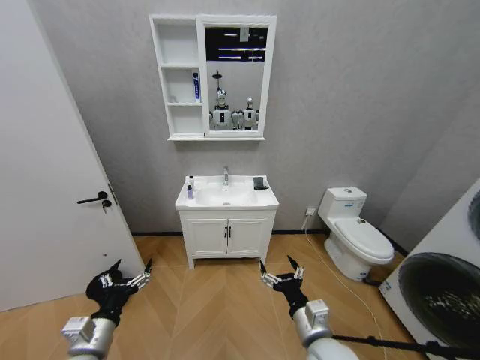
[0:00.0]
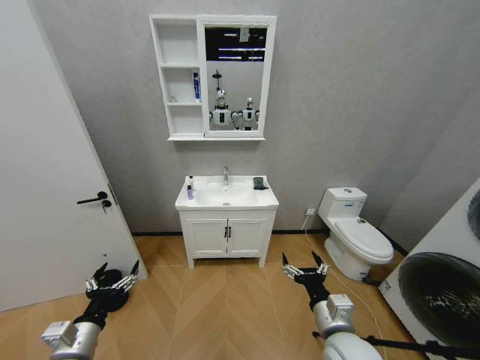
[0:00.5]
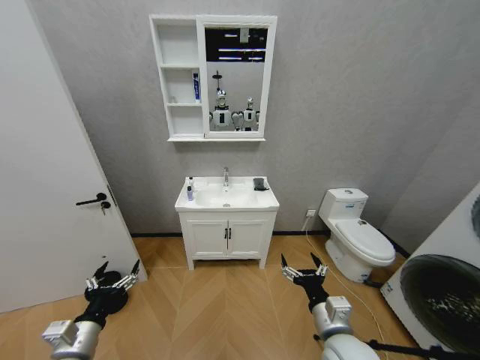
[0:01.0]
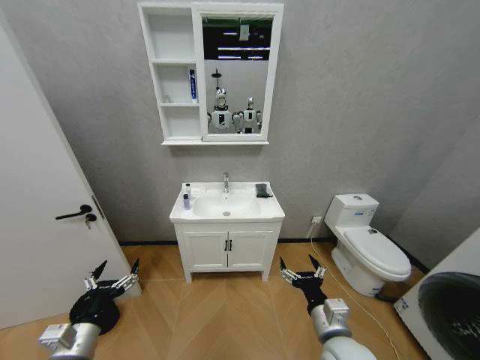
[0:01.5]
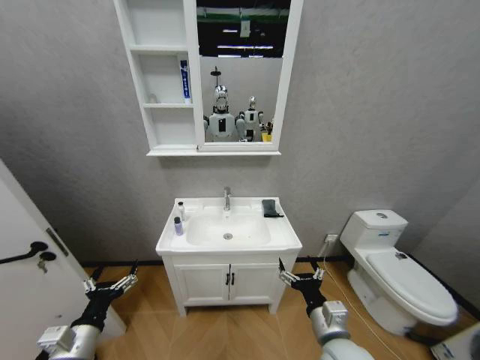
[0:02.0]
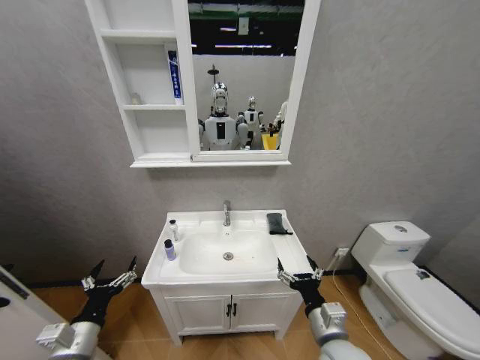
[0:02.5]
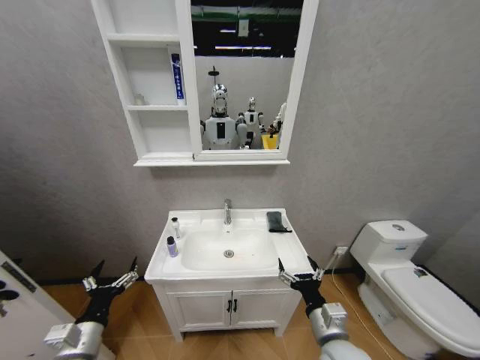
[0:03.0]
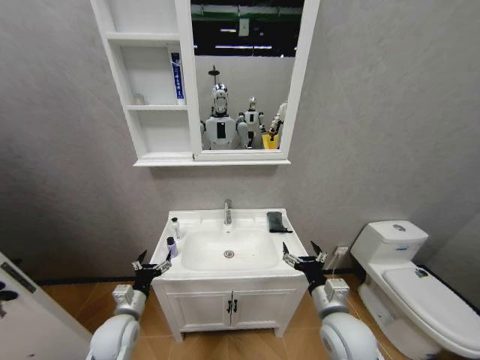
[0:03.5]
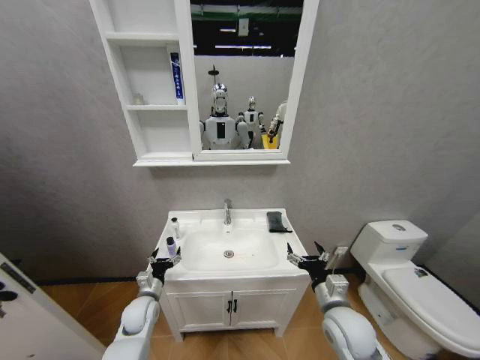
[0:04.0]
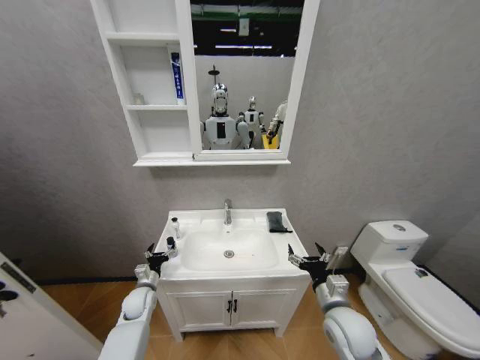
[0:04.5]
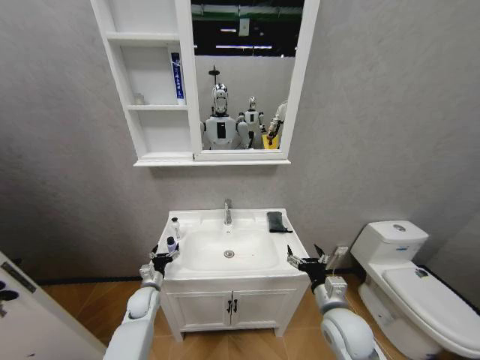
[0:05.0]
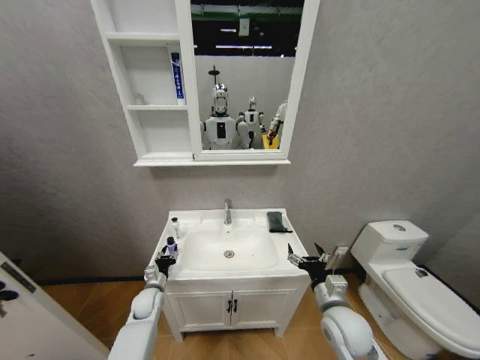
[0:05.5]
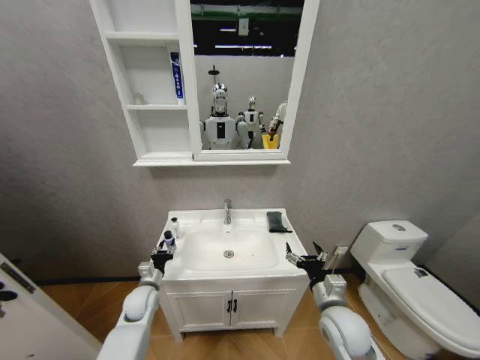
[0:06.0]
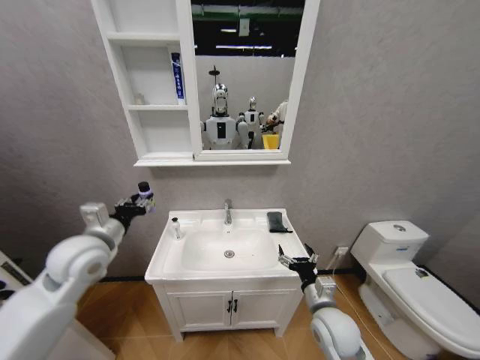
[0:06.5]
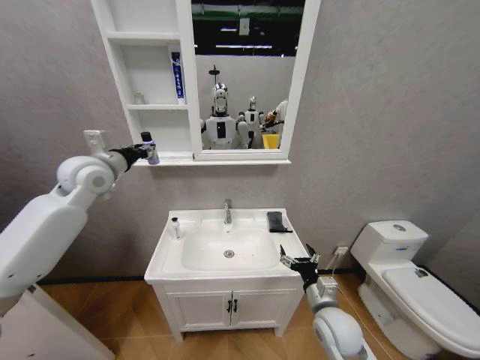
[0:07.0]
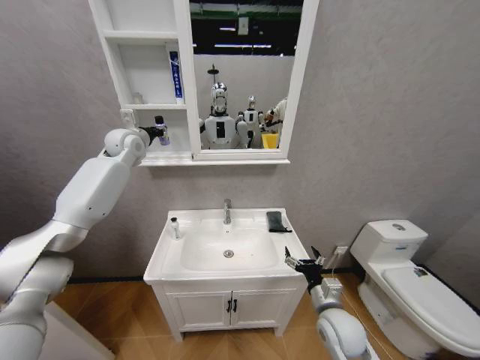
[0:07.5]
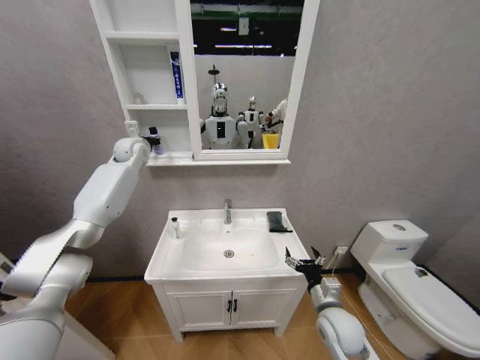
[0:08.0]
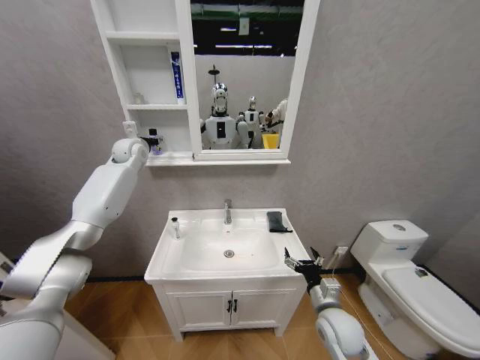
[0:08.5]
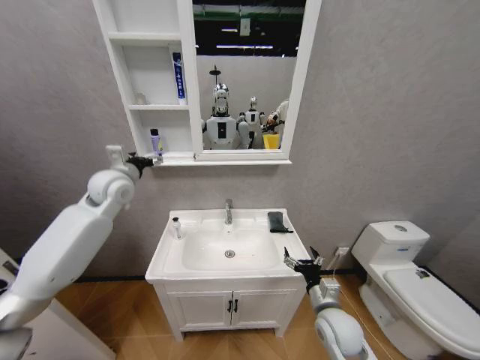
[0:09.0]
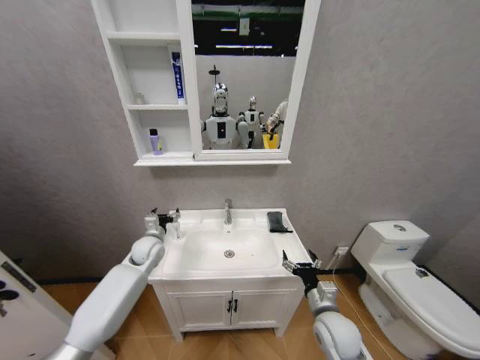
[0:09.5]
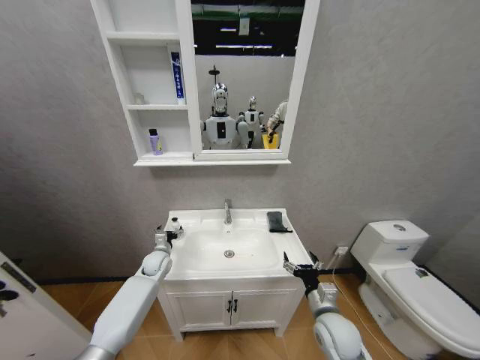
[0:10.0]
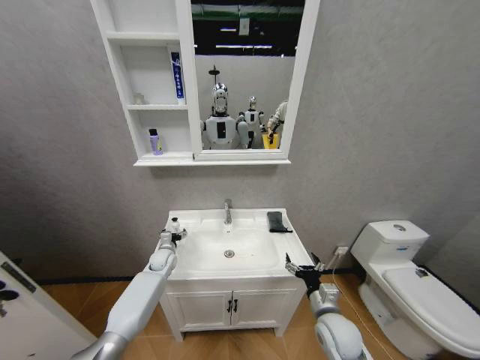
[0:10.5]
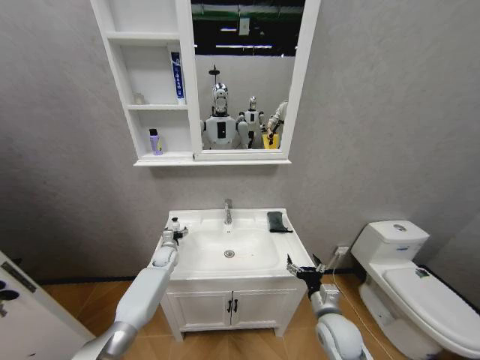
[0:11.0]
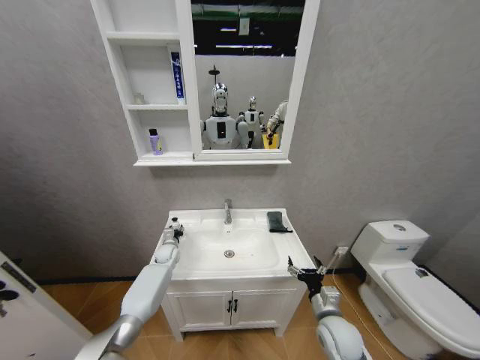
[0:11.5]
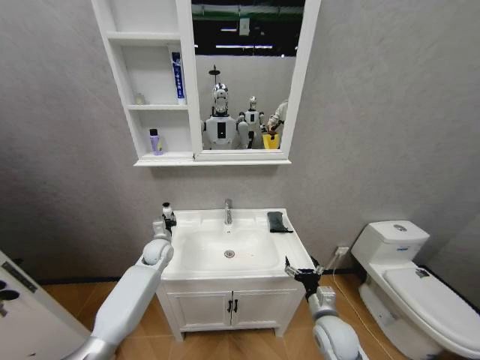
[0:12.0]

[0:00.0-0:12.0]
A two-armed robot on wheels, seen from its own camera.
Task of the whole recording: Move facial cleanser and shampoo from washbasin to cabinet, then wipe washbasin with towel.
0:02.0 to 0:04.0: The left gripper is displaced forward, downward and to the right by roughly 20 cm; the right gripper is displaced forward by approximately 5 cm.
0:04.0 to 0:06.0: The left gripper closes.
0:06.0 to 0:08.0: The left gripper moves upward and forward, roughly 50 cm.
0:08.0 to 0:10.0: The left gripper is displaced downward and backward by roughly 40 cm, and opens its fingers.
0:10.0 to 0:12.0: The left gripper moves upward, some 5 cm, and closes up.

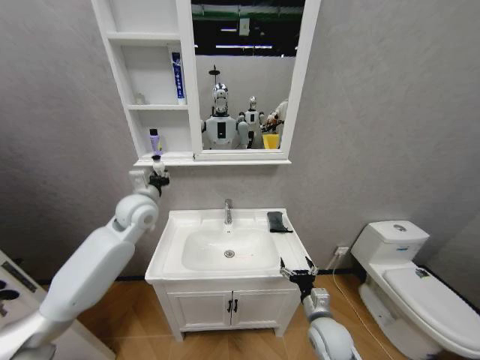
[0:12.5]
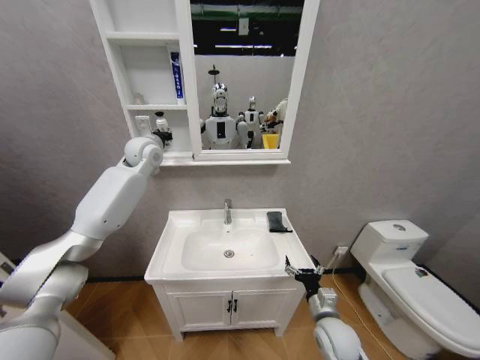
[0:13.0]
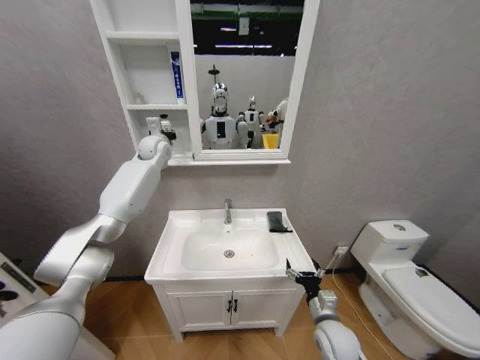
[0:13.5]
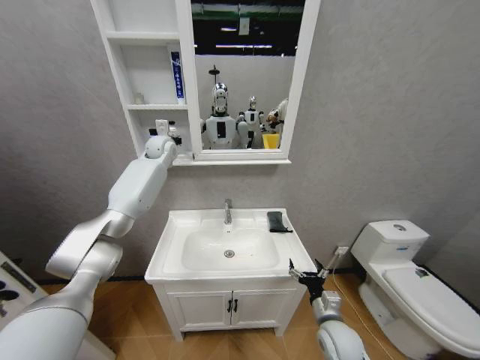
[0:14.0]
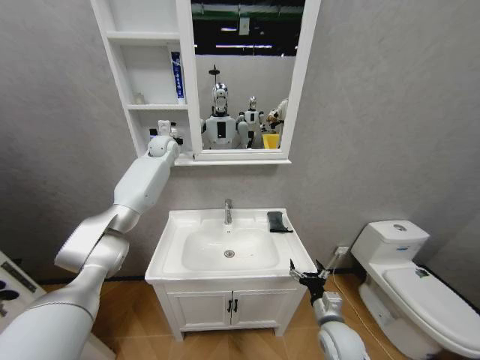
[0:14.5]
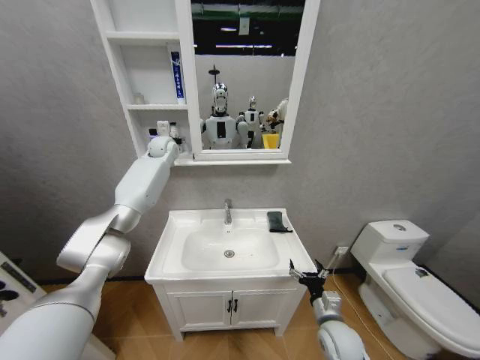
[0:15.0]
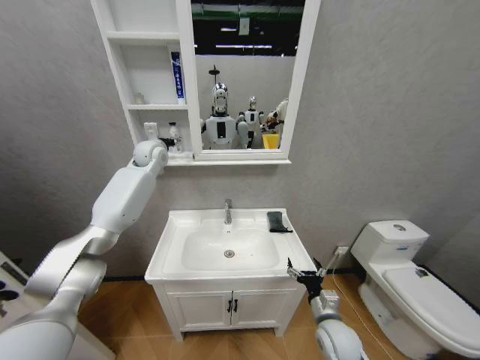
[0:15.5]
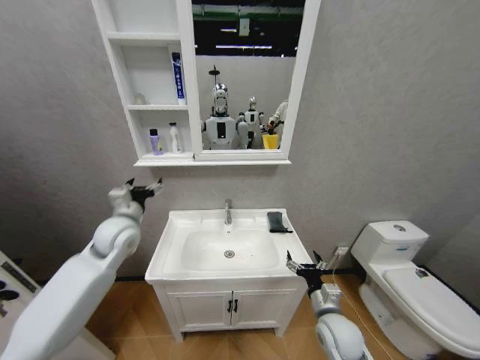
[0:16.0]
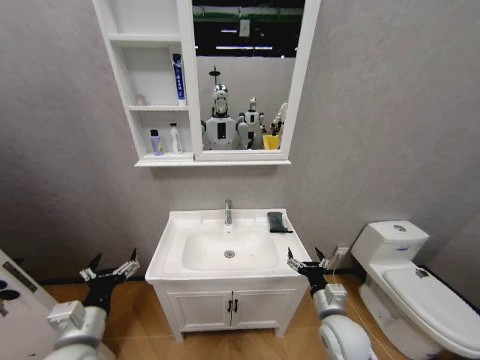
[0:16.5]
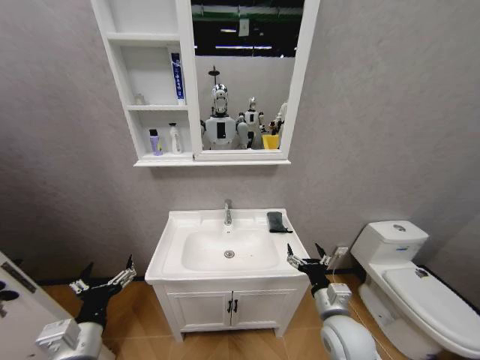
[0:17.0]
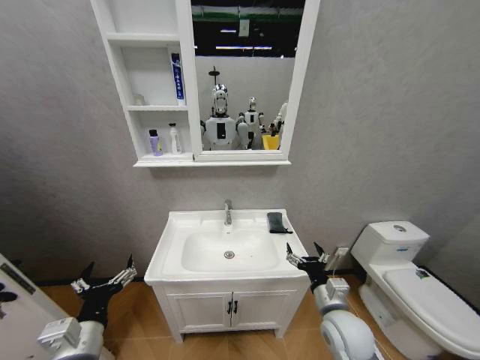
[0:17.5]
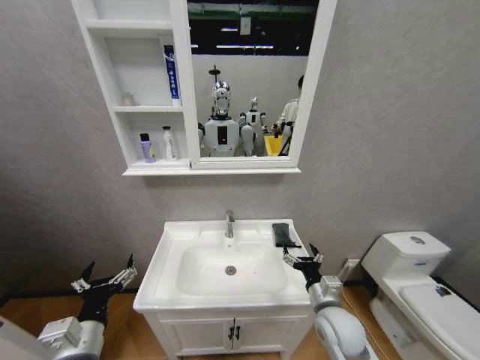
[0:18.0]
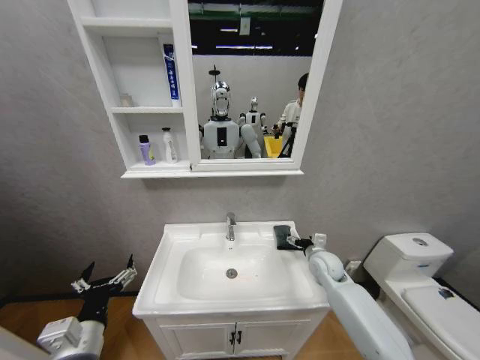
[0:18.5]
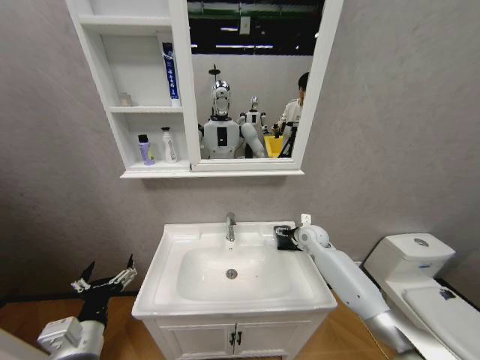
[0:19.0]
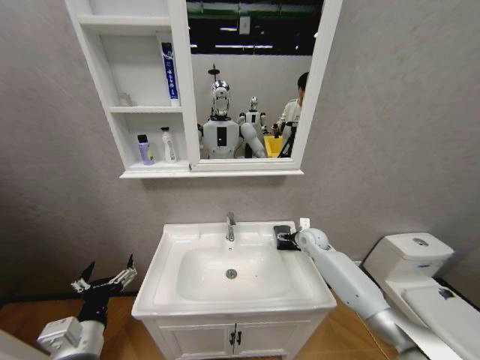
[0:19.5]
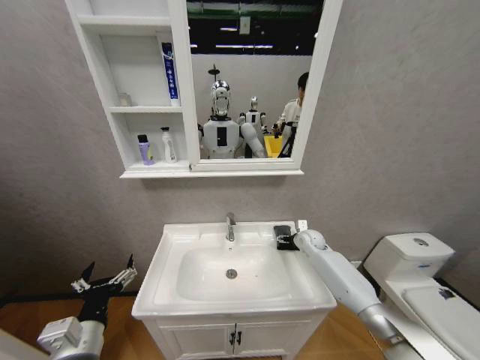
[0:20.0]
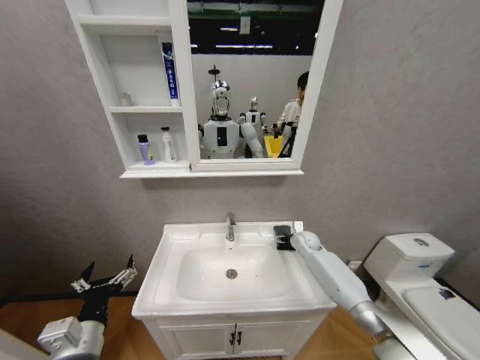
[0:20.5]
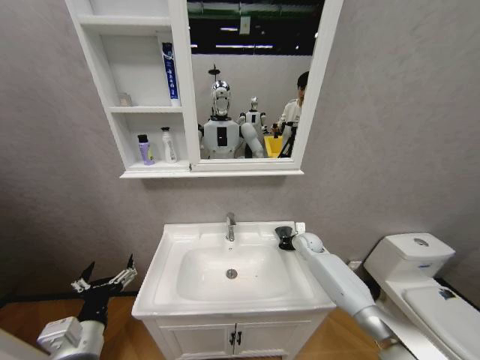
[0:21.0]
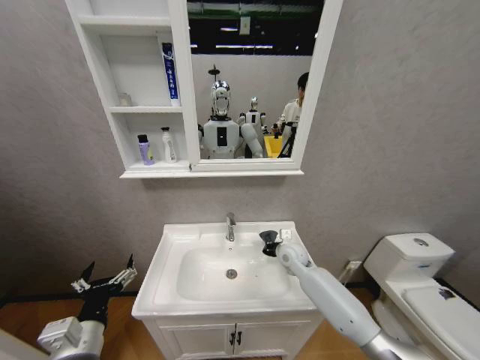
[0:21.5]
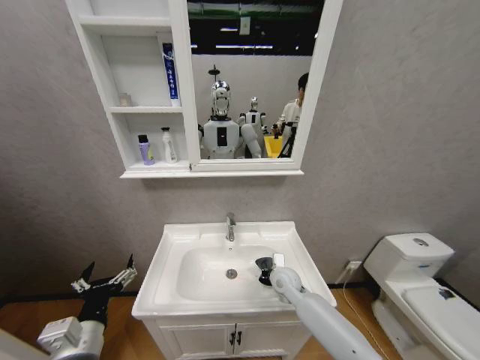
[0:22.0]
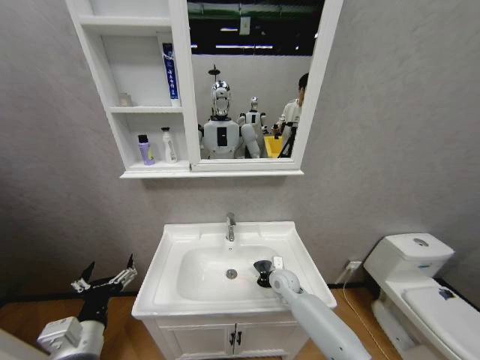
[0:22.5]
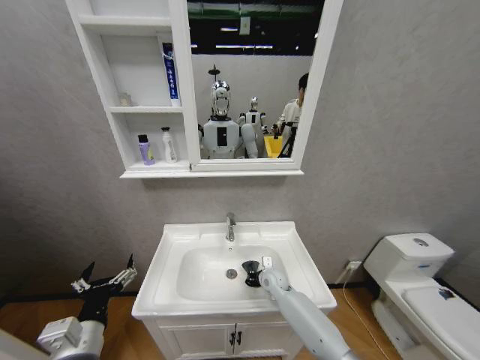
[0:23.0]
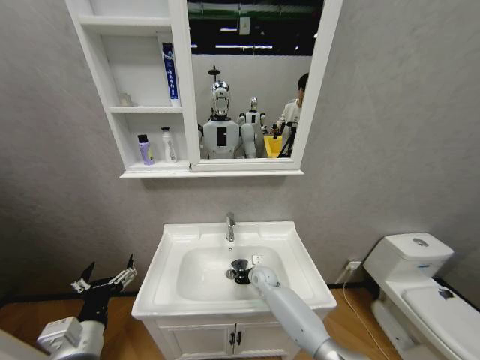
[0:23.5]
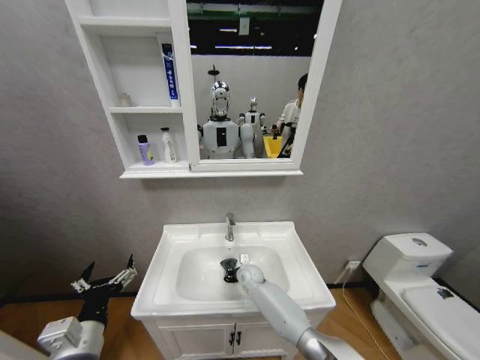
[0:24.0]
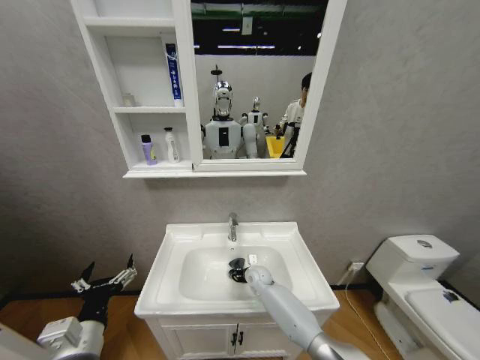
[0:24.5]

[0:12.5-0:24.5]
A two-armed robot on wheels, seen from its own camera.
Task of the whole recording: Move facial cleanser and shampoo from washbasin to cabinet, then wipe washbasin with towel.
0:12.5 to 0:14.5: The left gripper moves forward, roughly 25 cm.
0:14.5 to 0:16.5: The right gripper shifts roughly 5 cm upward; the left gripper is displaced backward and downward by some 60 cm, and opens up.
0:16.5 to 0:18.5: The right gripper moves forward, about 20 cm.
0:18.5 to 0:20.5: The right gripper is displaced forward by about 10 cm.
0:20.5 to 0:22.5: The right gripper moves backward, to the left and downward, about 20 cm, and closes up.
0:22.5 to 0:24.5: The right gripper moves to the left and downward, about 10 cm.

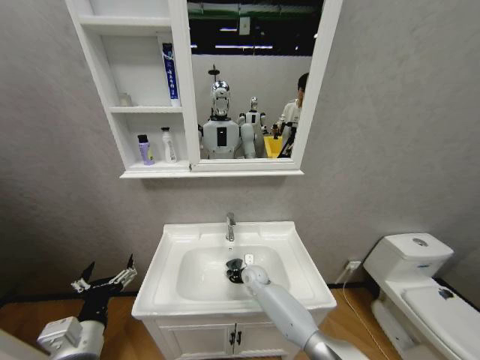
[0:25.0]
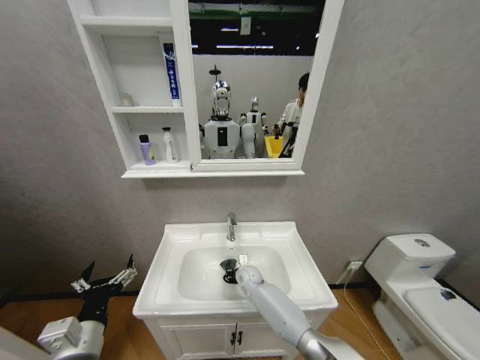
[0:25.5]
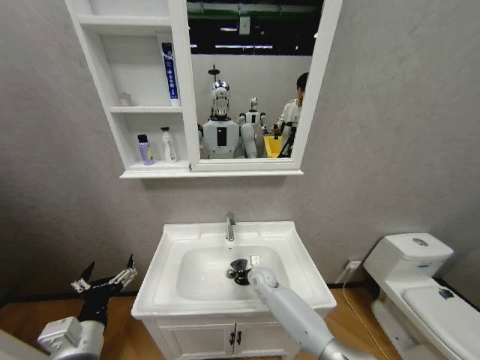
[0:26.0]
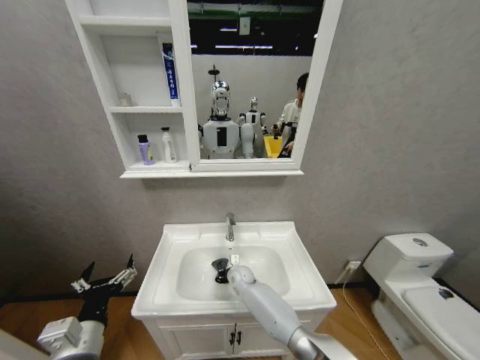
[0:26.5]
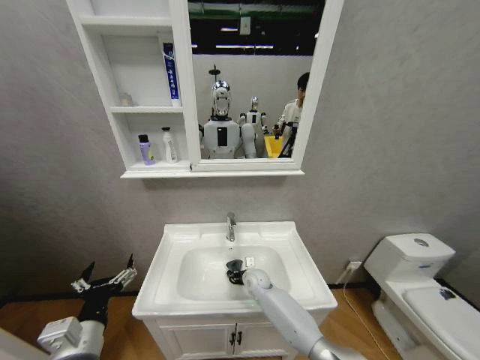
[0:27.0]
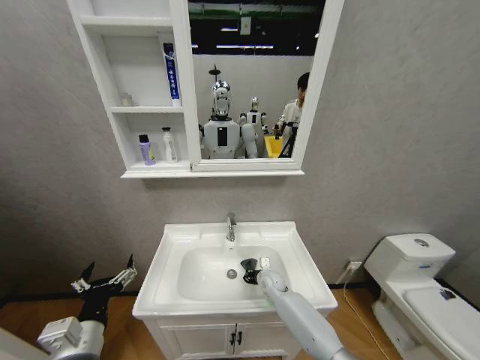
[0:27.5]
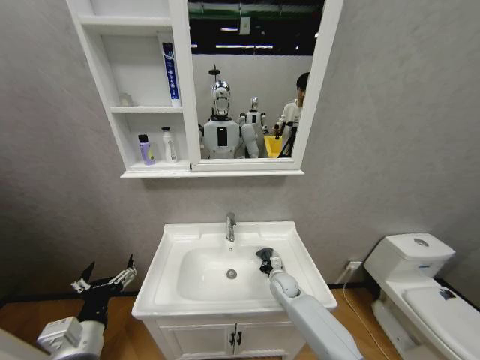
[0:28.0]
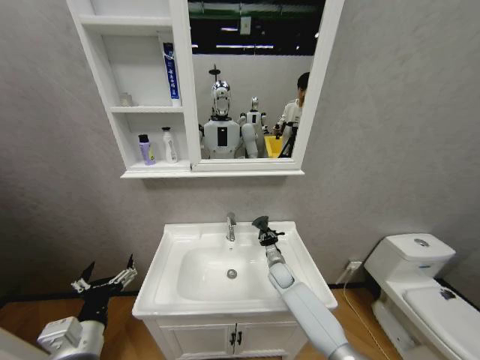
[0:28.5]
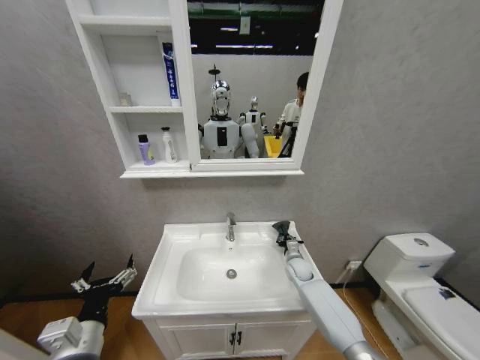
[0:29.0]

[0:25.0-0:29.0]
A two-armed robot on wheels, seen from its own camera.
Task of the whole recording: Move facial cleanser and shampoo from washbasin to cabinet, then wipe washbasin with towel.
0:25.0 to 0:27.0: The right gripper travels to the left and back again, some 5 cm each way.
0:27.0 to 0:29.0: The right gripper shifts approximately 15 cm to the right.
